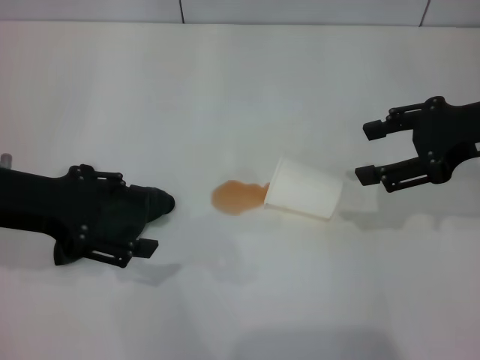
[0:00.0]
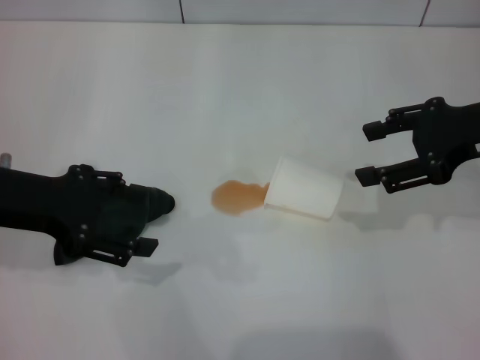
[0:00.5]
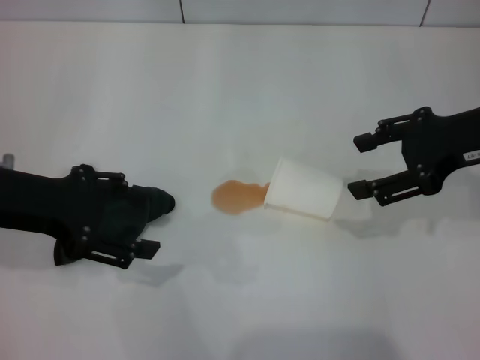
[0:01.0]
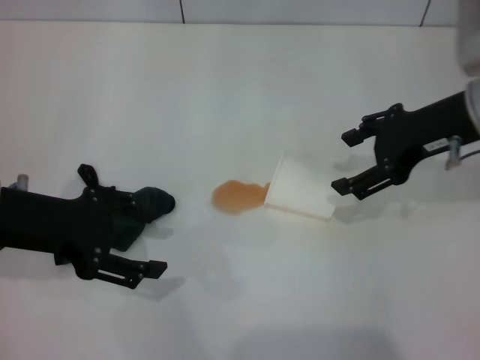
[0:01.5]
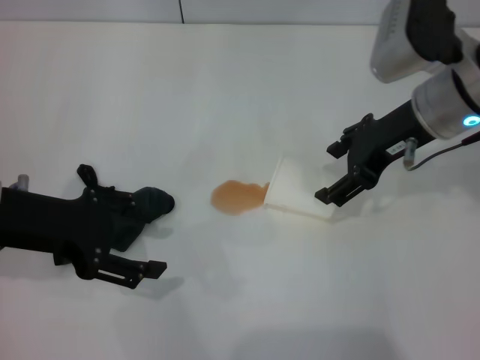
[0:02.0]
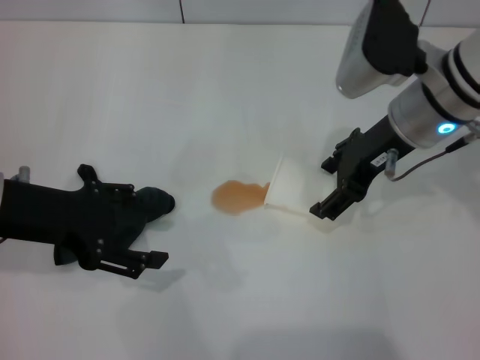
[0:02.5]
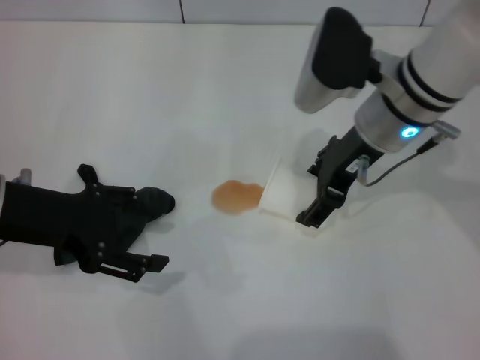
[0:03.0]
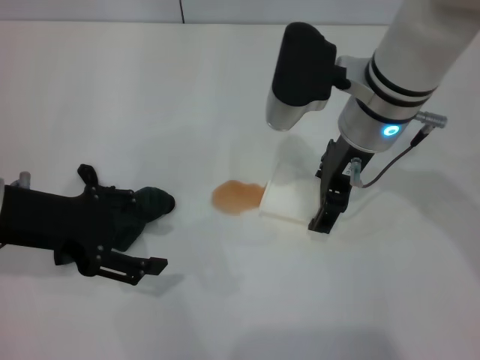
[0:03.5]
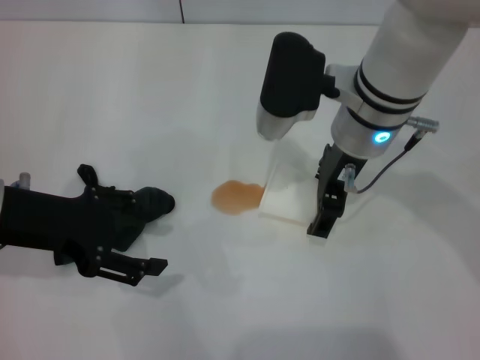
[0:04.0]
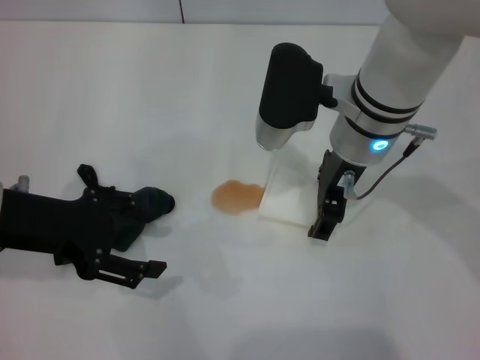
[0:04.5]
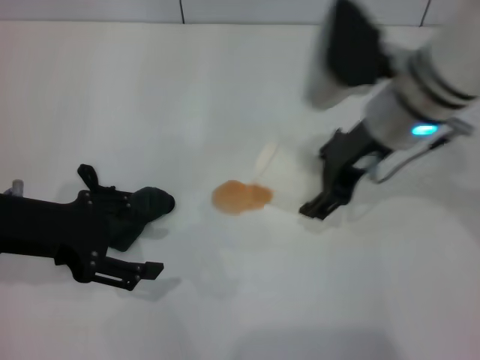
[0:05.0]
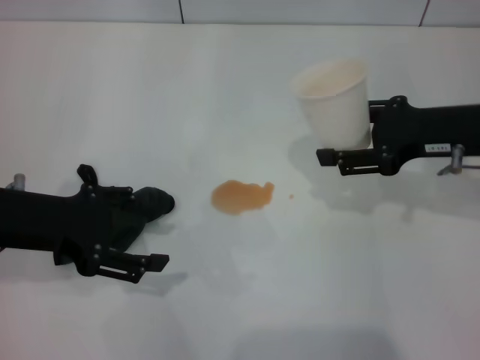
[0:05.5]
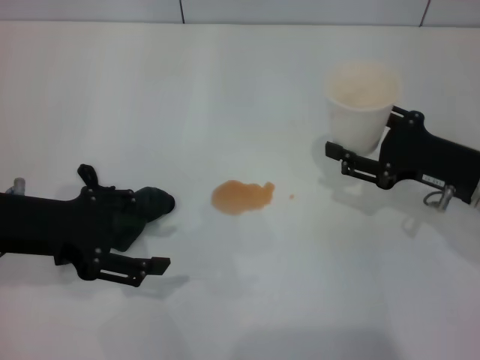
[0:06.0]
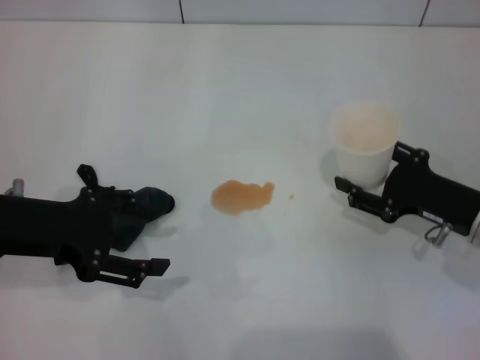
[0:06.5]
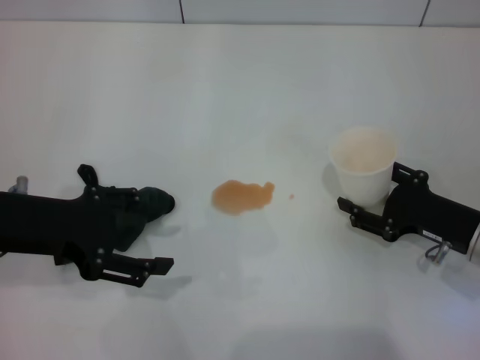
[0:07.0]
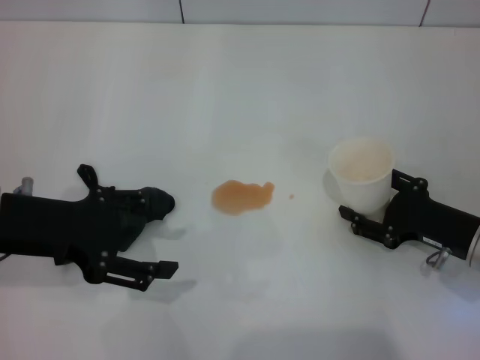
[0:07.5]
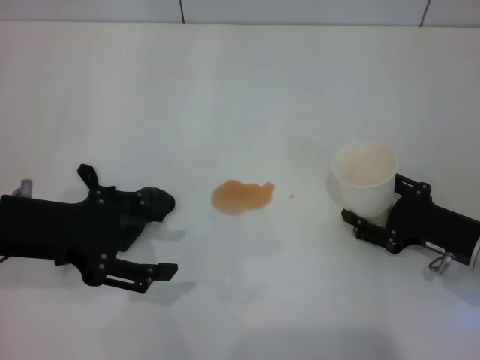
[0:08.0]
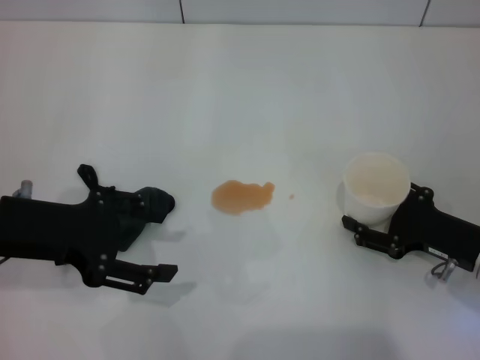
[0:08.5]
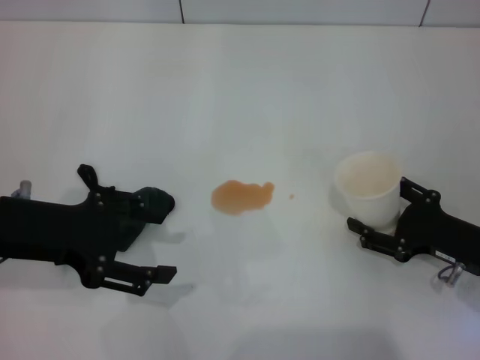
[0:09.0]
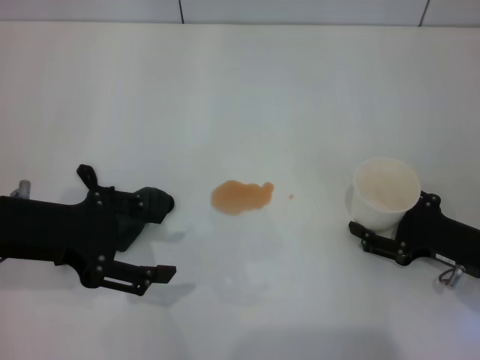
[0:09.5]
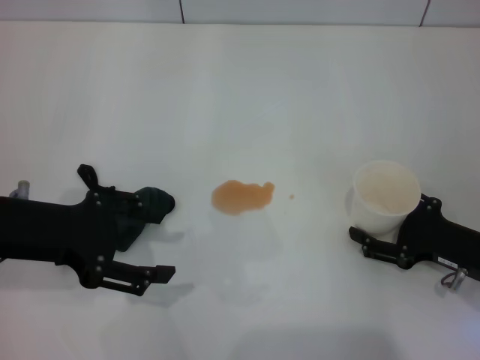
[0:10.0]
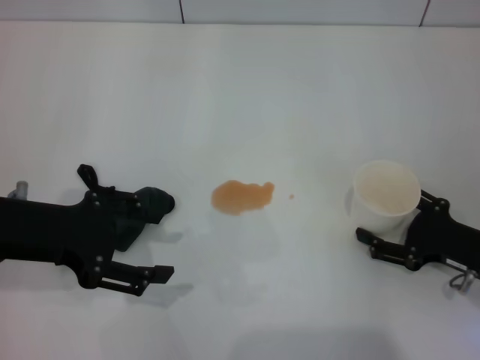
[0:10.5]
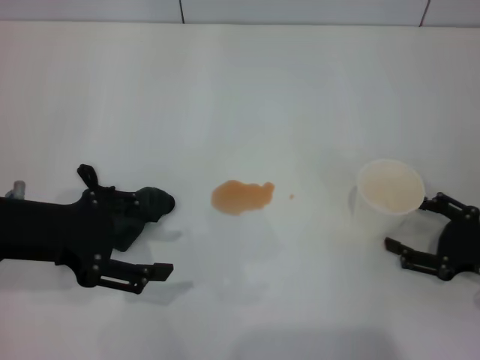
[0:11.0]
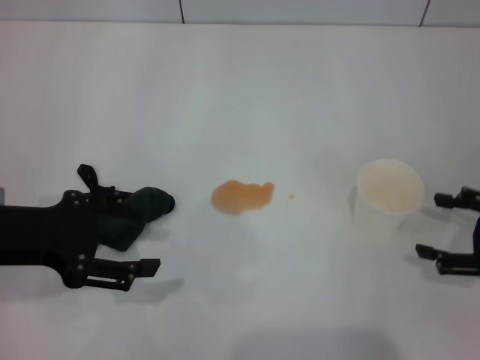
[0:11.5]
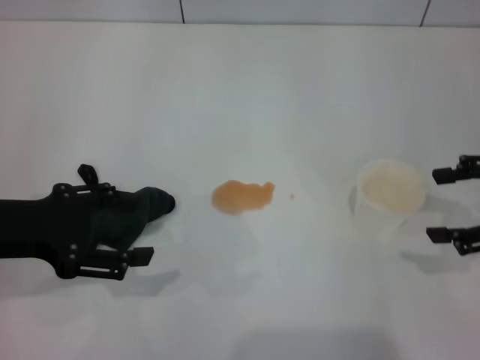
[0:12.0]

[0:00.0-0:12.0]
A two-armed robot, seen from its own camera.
Step, 0:00.0 to 0:04.5: Grasp the paper cup with the right gripper.
Step, 0:05.0 to 0:11.0: Stand the paper cup upright with the right gripper.
0:00.0 to 0:02.0: The right gripper moves to the left, about 10 cm, and opens up.
0:02.0 to 0:04.0: The right gripper is displaced to the left by roughly 10 cm.
0:04.0 to 0:06.0: The right gripper moves to the right and downward, about 20 cm, and closes up.
0:06.0 to 0:08.0: The right gripper is displaced downward by about 5 cm.
0:08.0 to 0:10.0: The right gripper opens its fingers.
0:10.0 to 0:12.0: The right gripper heads upward, covering approximately 15 cm.

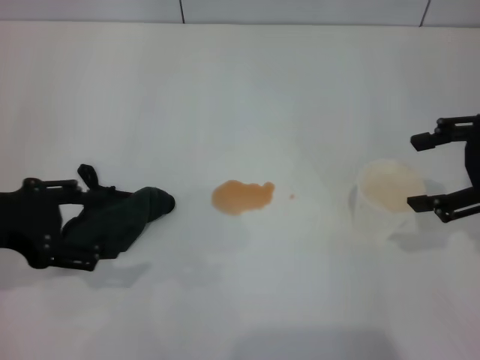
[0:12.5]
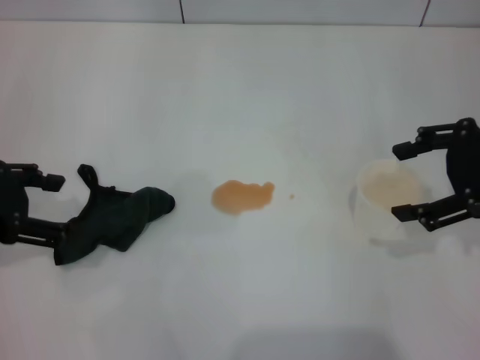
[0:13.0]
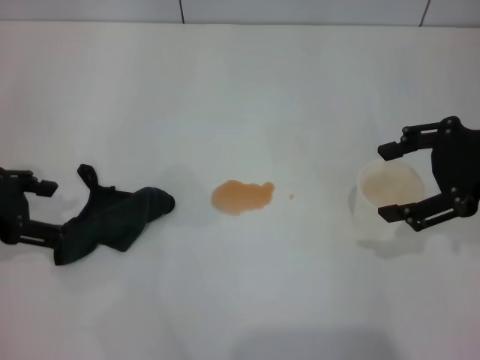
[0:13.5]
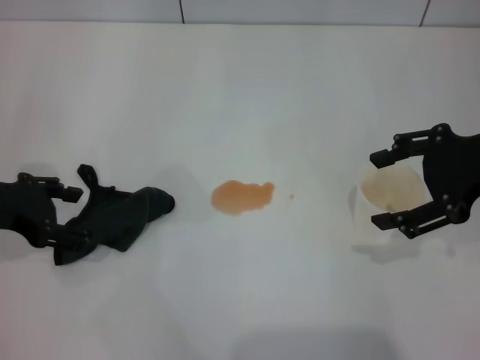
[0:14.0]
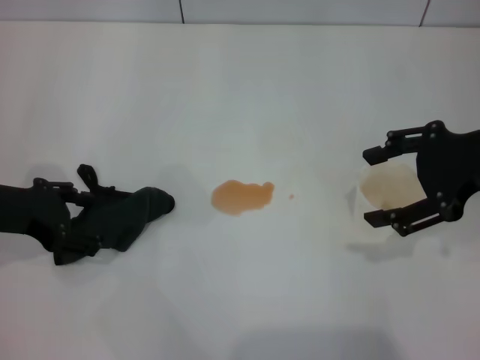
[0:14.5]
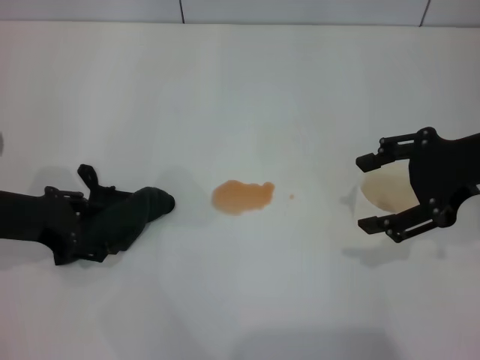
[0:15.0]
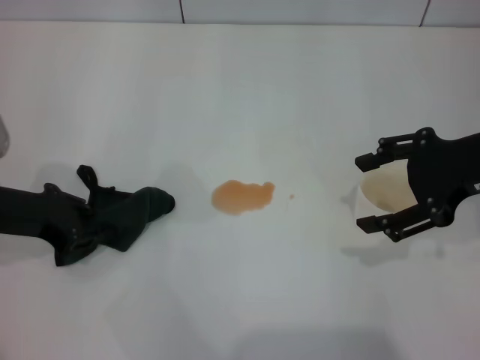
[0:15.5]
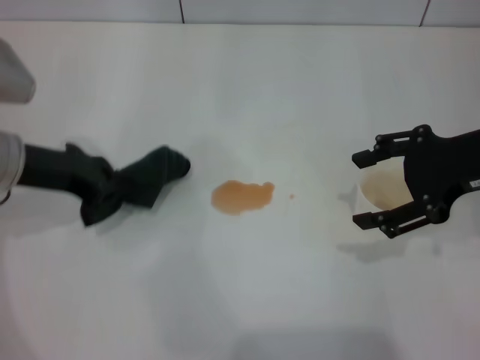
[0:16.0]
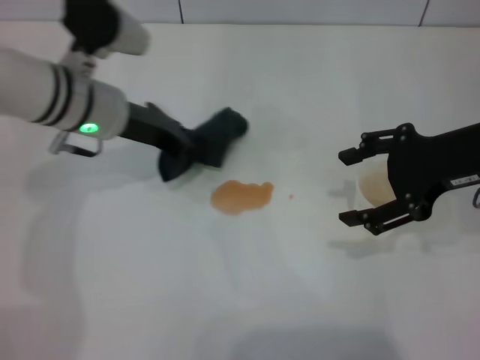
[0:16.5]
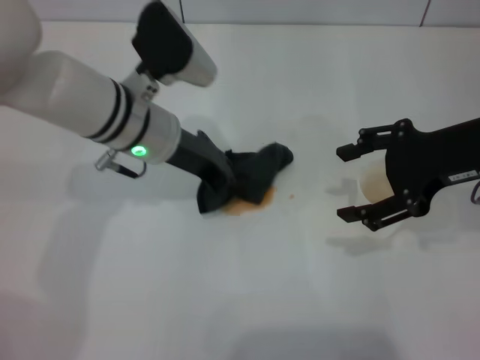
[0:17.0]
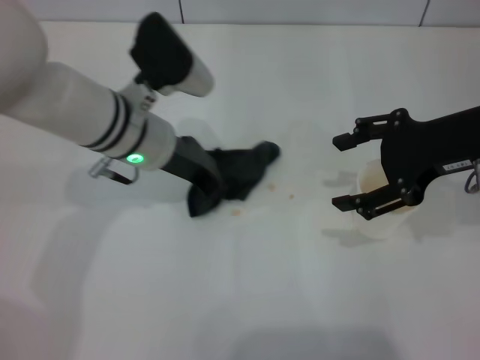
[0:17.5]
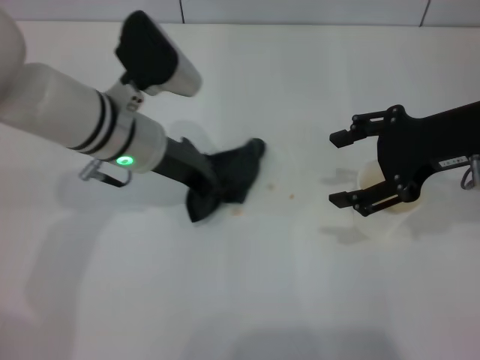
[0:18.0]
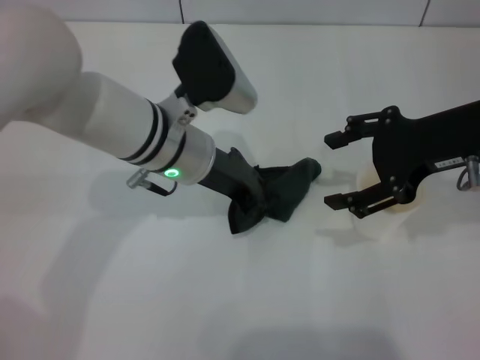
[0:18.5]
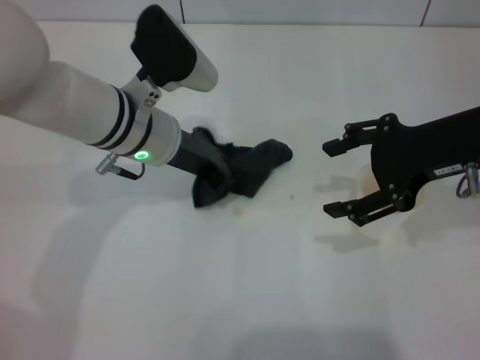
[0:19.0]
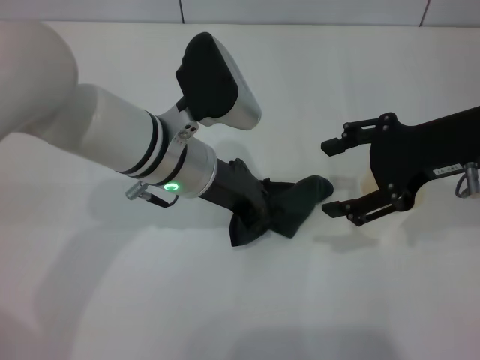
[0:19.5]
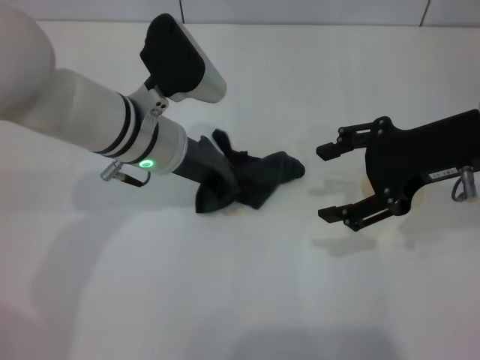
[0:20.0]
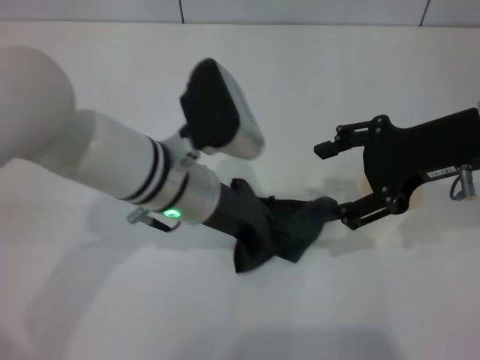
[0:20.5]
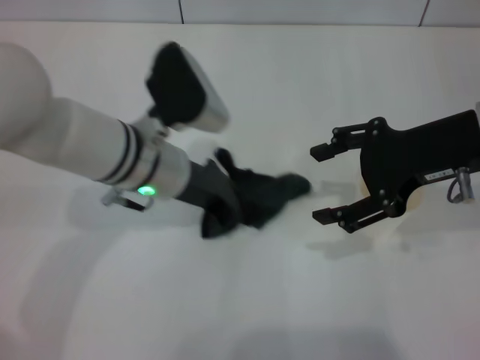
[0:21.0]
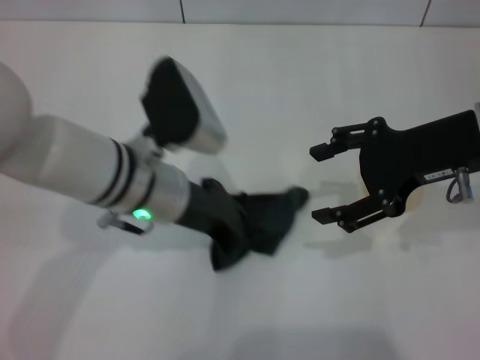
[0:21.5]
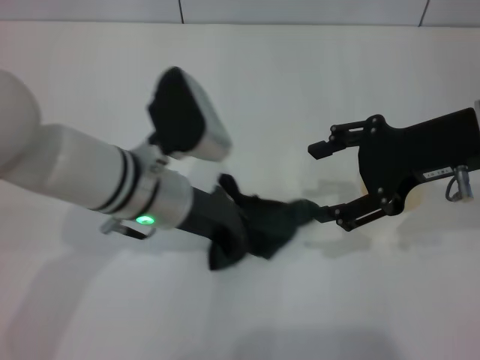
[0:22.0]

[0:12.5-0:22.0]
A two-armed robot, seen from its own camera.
Step, 0:12.5 to 0:15.5: Grasp the rag with the left gripper.
0:12.5 to 0:14.5: The left gripper changes place by approximately 5 cm.
0:14.5 to 0:16.5: The left gripper goes approximately 15 cm to the right and forward, and closes.
0:18.0 to 0:20.0: The grippers make only small movements.
0:20.0 to 0:22.0: The left gripper ends up about 5 cm from where it was.

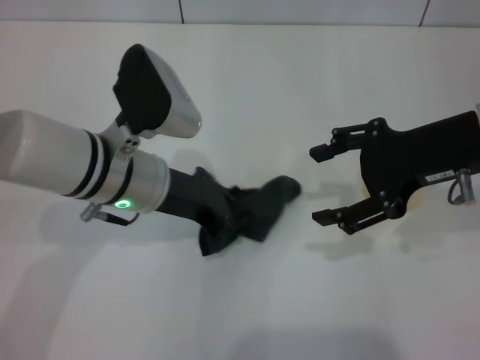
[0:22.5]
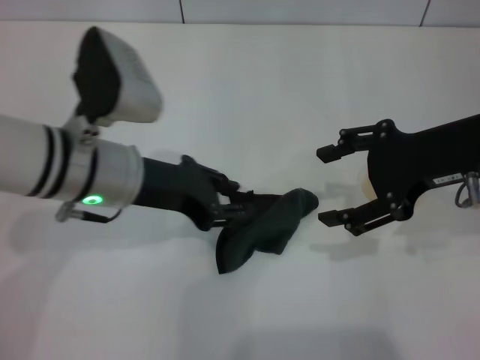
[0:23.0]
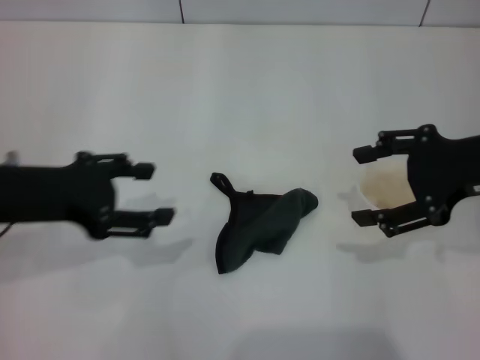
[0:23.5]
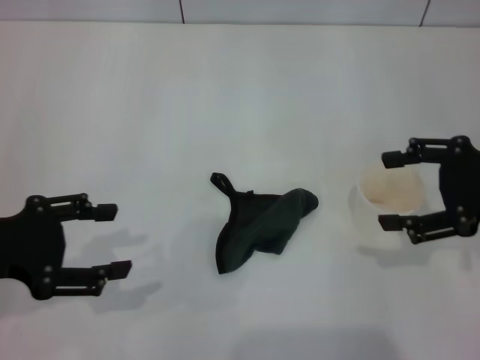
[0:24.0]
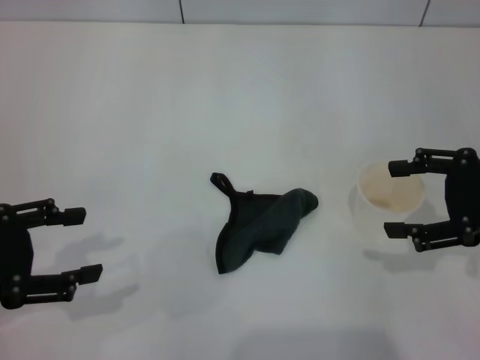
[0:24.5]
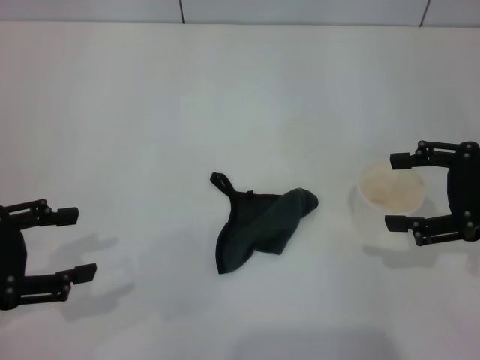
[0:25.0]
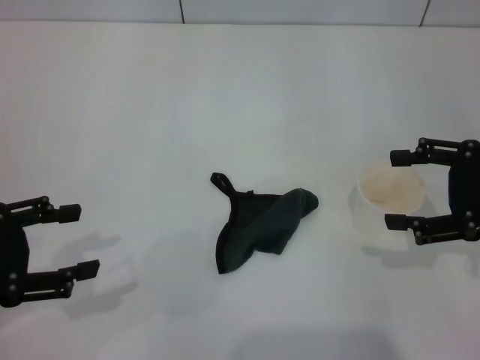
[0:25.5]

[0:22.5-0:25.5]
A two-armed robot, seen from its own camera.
0:22.5 to 0:24.0: The right gripper moves to the right, roughly 10 cm. Meanwhile the left gripper shifts approximately 20 cm to the left and backward, and opens.
0:24.0 to 0:25.5: The grippers stay close to where they were, moving slightly.

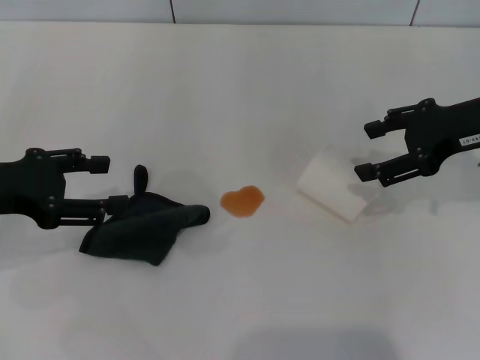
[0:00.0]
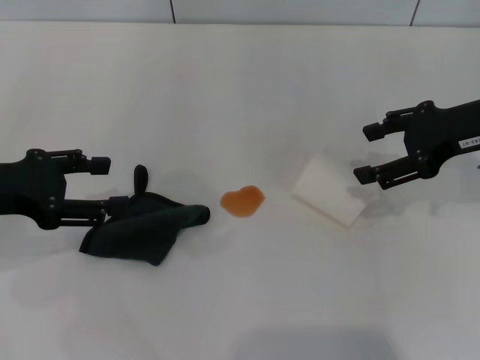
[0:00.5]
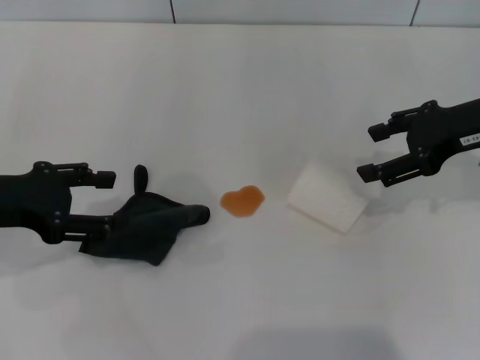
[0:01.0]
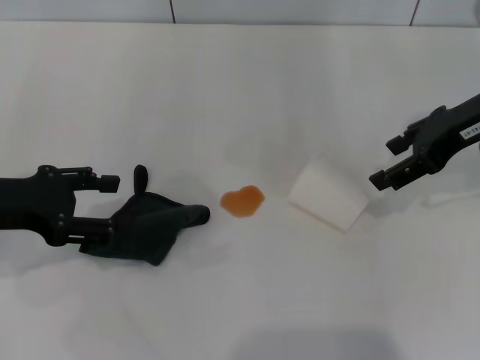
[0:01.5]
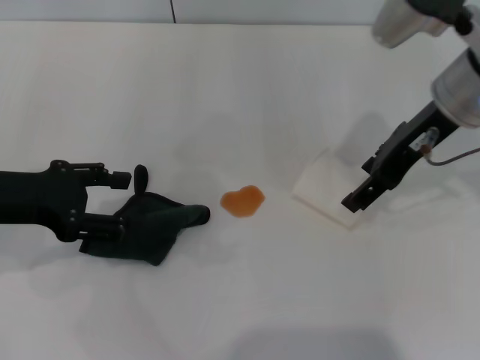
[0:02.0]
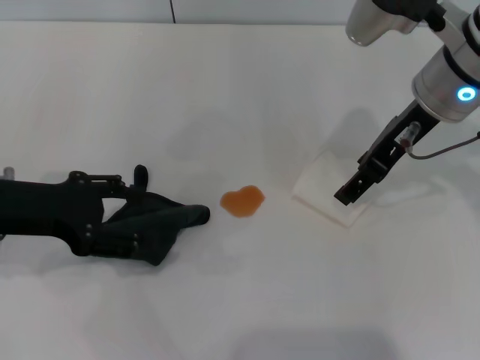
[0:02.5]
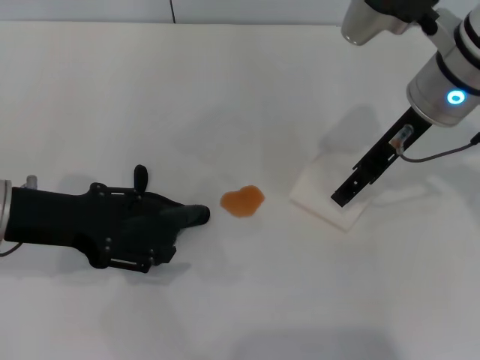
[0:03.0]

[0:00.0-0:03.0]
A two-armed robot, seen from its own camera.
0:01.5 to 0:03.0: The right gripper moves to the left, roughly 10 cm.
